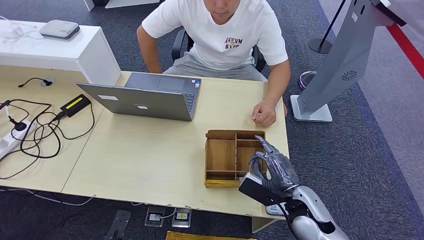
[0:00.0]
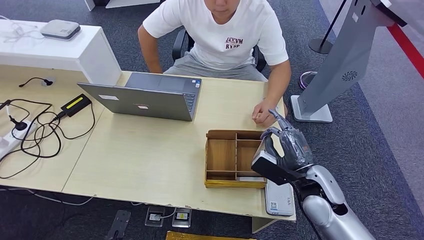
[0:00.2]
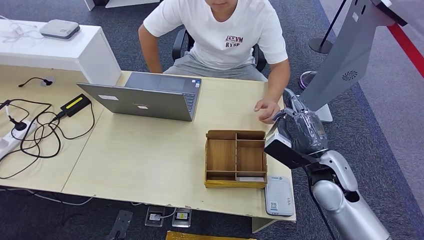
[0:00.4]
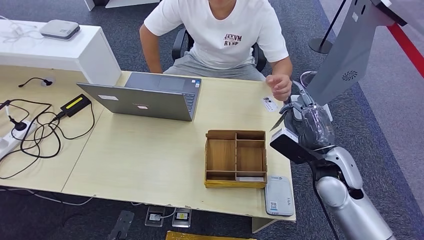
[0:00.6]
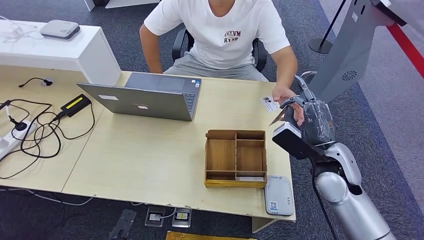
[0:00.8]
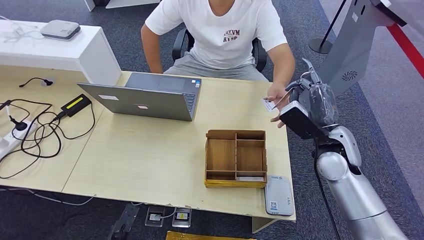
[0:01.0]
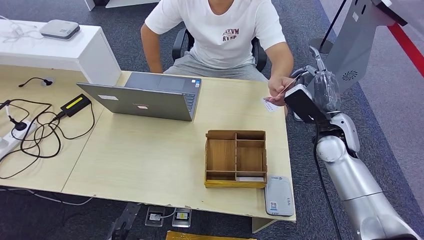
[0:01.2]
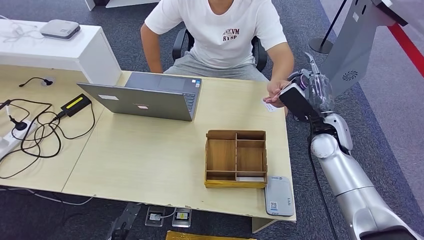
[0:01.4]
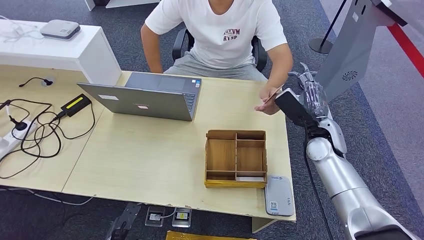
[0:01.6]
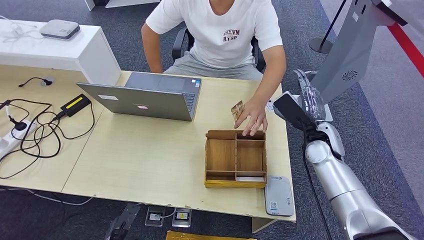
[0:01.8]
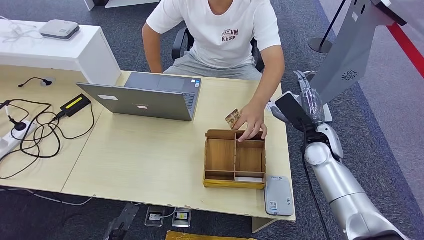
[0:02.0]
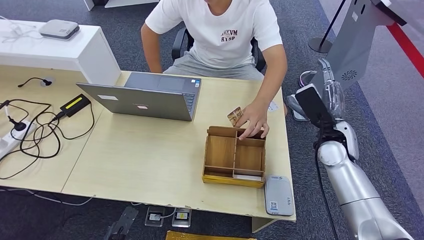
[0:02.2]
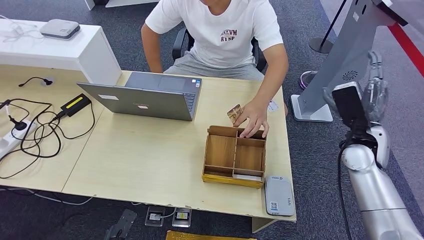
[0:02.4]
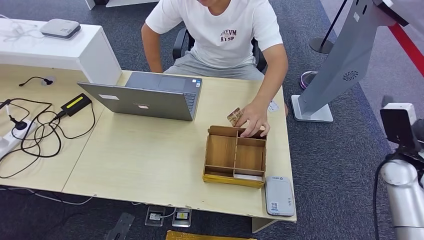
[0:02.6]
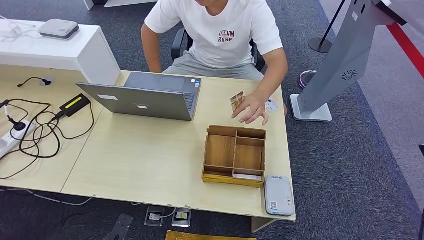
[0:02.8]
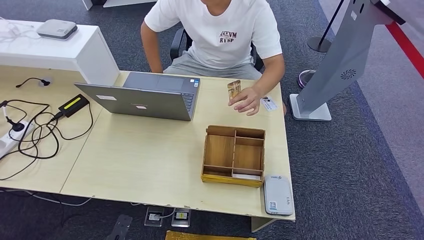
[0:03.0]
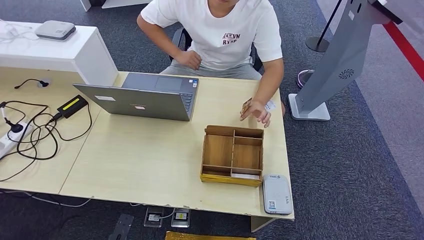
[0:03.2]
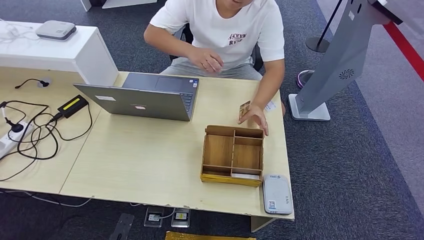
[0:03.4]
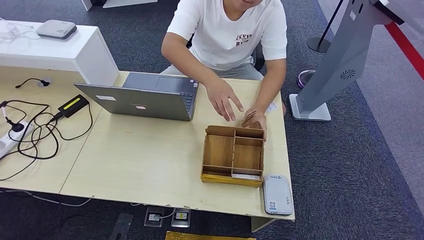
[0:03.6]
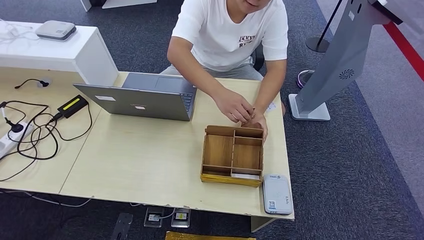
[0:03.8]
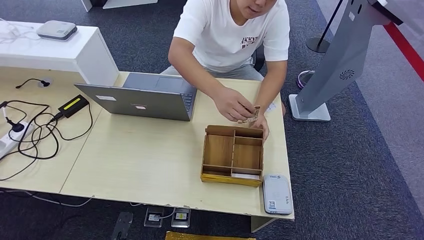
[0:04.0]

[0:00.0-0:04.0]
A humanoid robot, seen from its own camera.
Step, 0:00.8 to 0:04.0: Hand the room key to the person.
0:00.0 to 0:01.4: The right hand goes roughly 20 cm forward and upward.
0:01.4 to 0:02.6: The right hand goes roughly 15 cm to the right.
